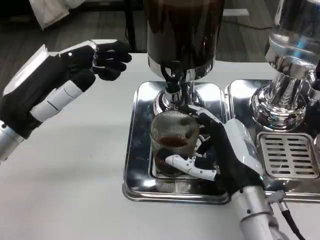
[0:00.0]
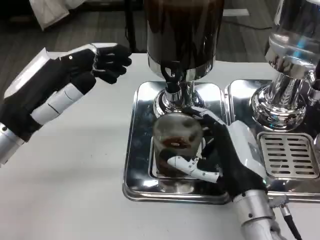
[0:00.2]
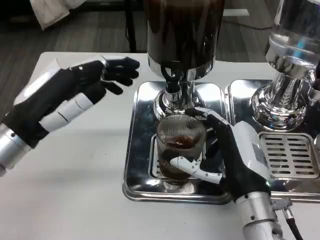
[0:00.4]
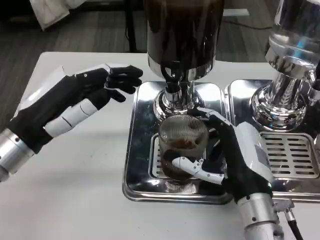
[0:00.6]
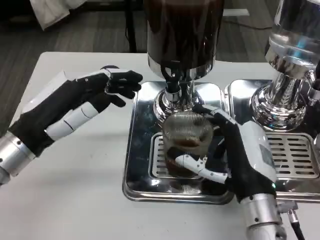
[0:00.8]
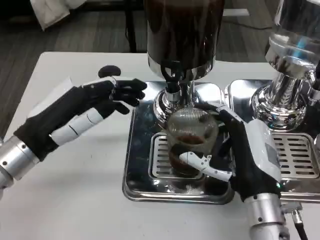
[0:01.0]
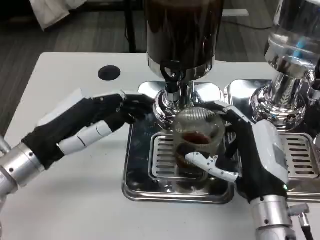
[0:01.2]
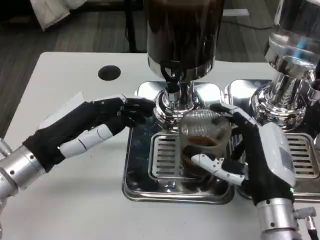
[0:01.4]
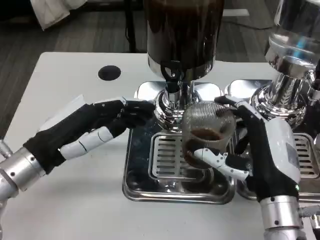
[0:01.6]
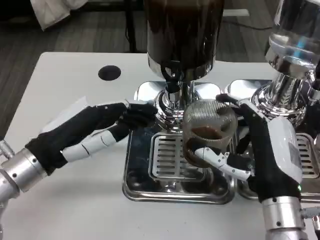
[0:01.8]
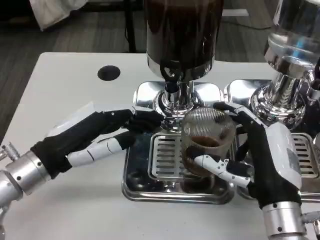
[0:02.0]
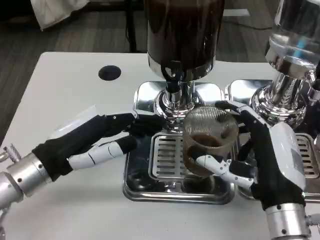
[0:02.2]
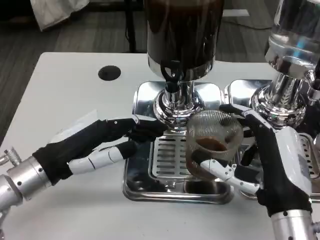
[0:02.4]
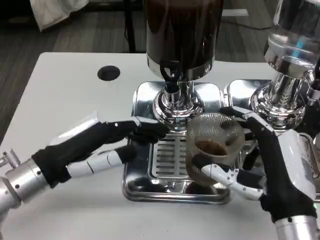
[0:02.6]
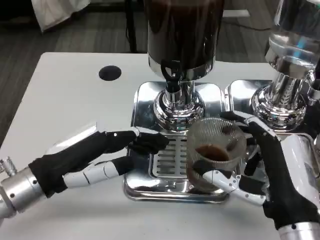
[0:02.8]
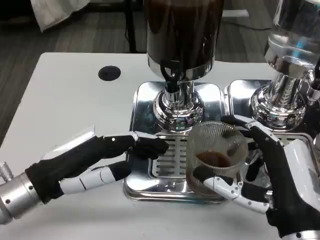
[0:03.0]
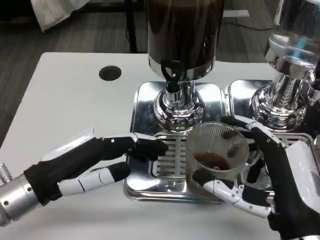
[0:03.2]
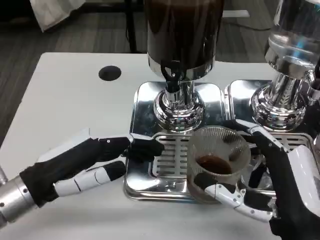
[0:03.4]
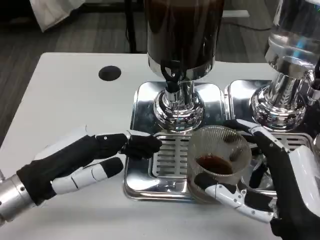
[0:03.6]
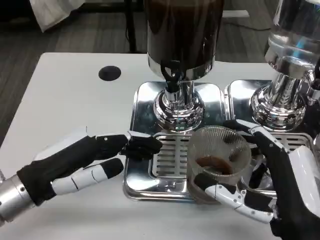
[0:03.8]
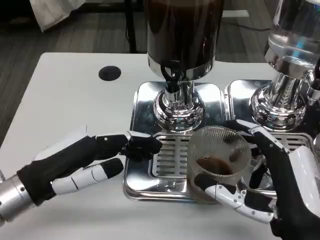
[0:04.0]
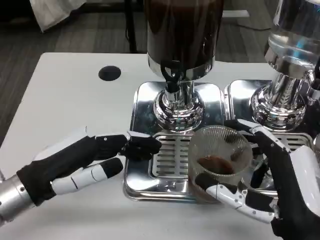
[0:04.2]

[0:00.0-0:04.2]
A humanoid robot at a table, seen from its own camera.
Task of the whole recording: Grasp the cup under the faucet to collect the drink, then remove the cup.
1.4 to 2.8 s: The right hand changes place by roughly 5 cm.
2.8 to 4.2 s: The hands move only a little.

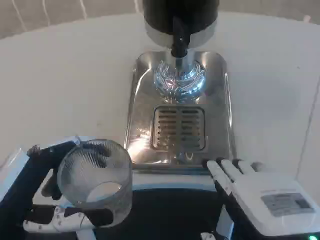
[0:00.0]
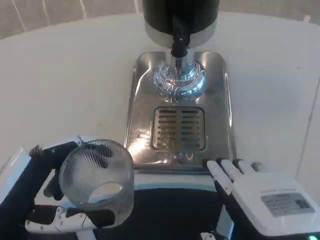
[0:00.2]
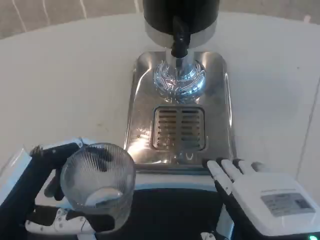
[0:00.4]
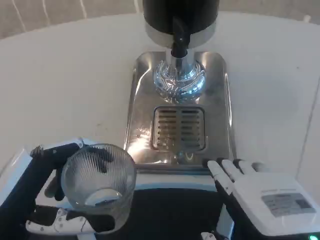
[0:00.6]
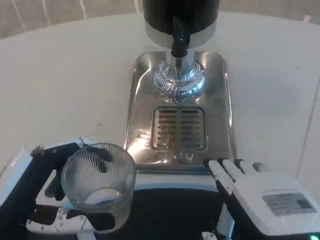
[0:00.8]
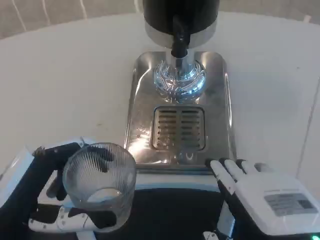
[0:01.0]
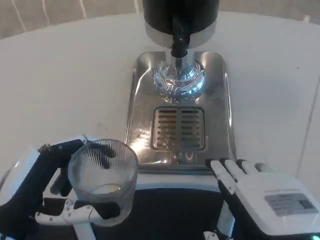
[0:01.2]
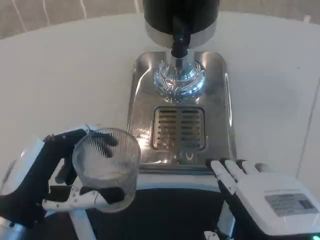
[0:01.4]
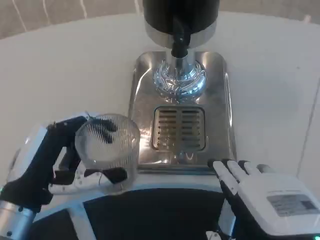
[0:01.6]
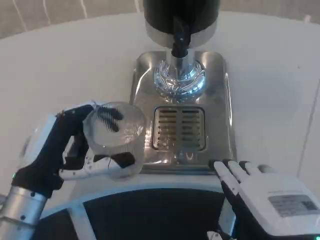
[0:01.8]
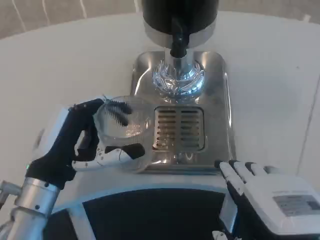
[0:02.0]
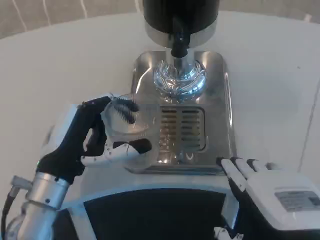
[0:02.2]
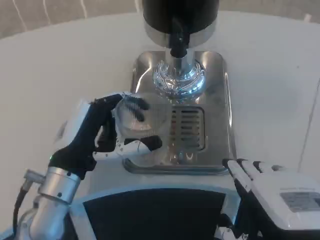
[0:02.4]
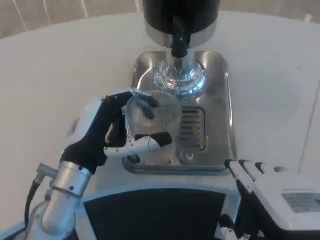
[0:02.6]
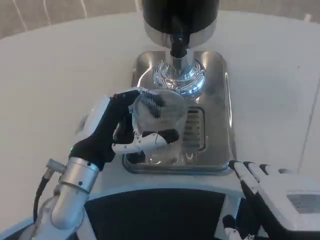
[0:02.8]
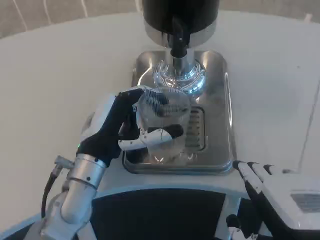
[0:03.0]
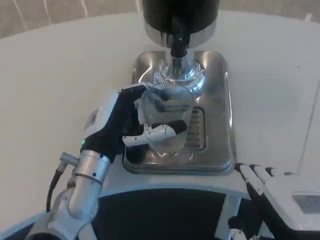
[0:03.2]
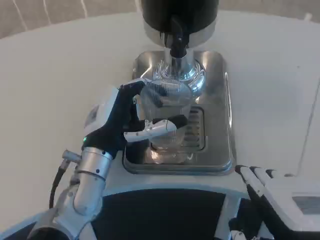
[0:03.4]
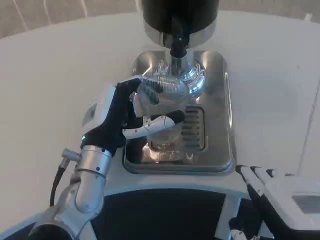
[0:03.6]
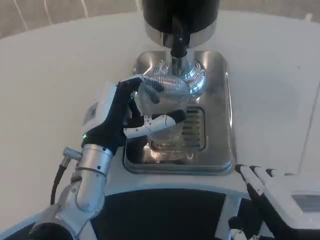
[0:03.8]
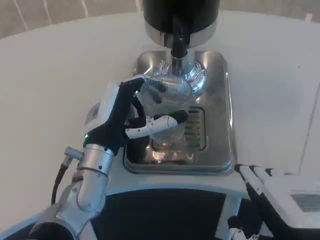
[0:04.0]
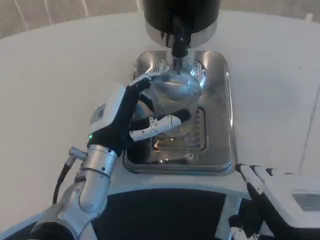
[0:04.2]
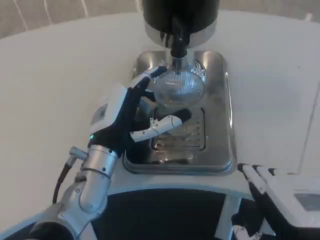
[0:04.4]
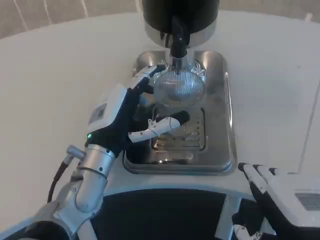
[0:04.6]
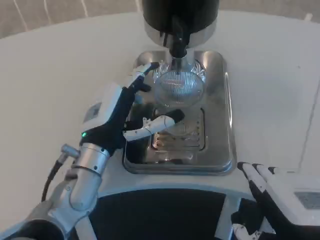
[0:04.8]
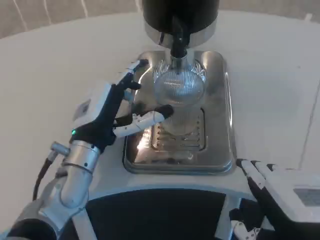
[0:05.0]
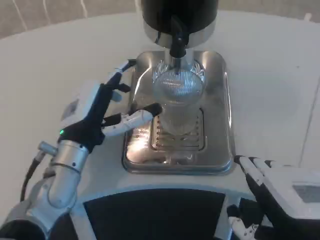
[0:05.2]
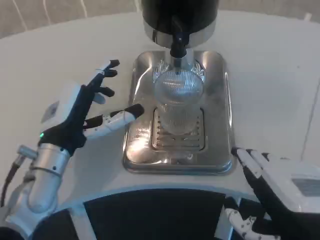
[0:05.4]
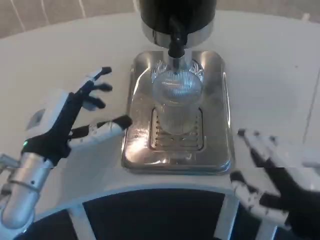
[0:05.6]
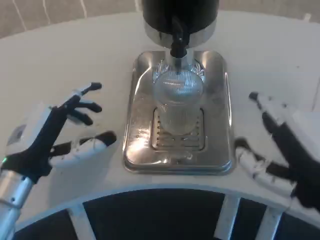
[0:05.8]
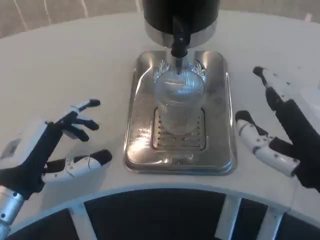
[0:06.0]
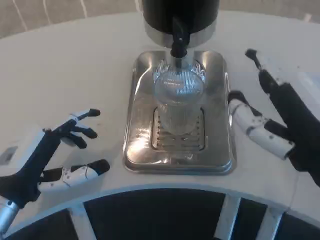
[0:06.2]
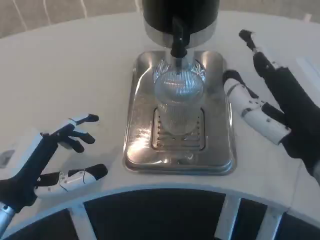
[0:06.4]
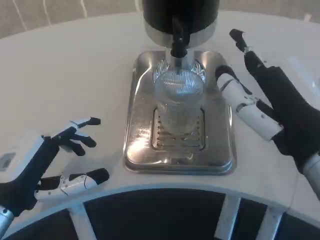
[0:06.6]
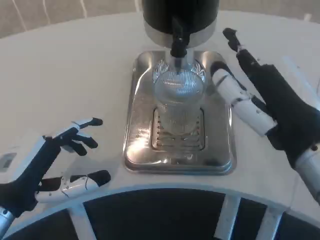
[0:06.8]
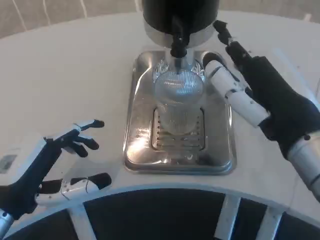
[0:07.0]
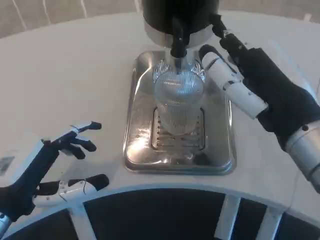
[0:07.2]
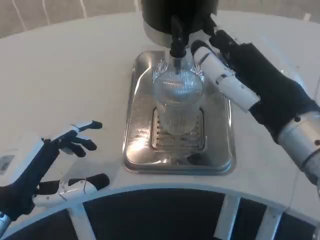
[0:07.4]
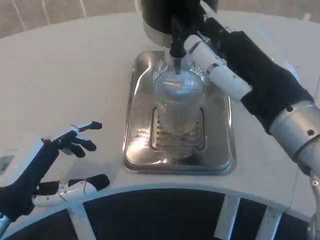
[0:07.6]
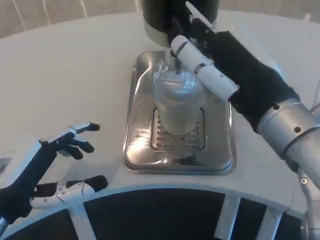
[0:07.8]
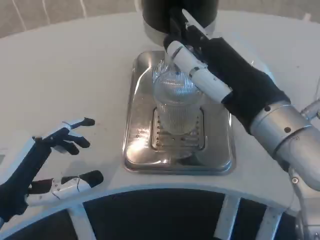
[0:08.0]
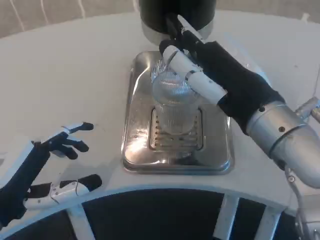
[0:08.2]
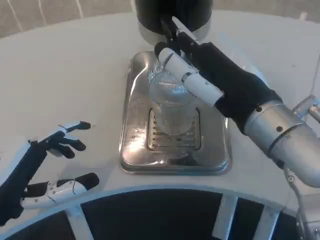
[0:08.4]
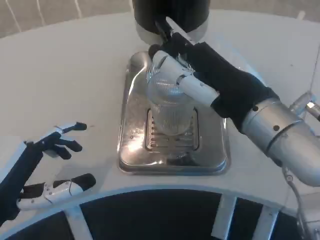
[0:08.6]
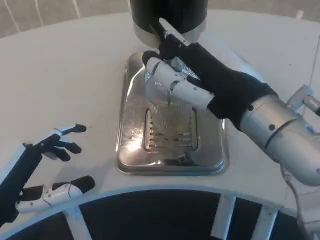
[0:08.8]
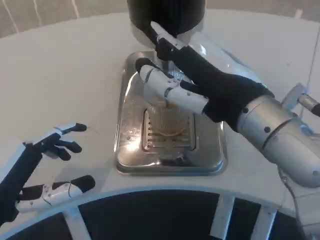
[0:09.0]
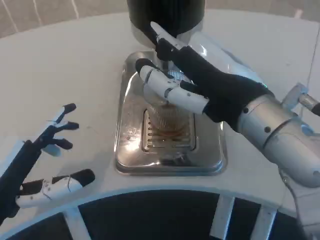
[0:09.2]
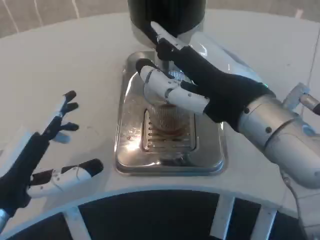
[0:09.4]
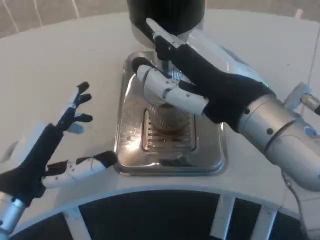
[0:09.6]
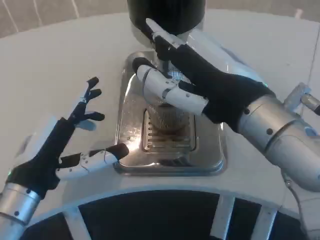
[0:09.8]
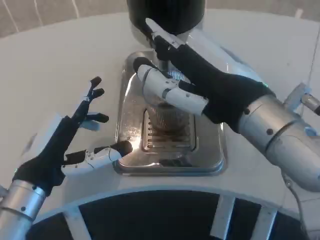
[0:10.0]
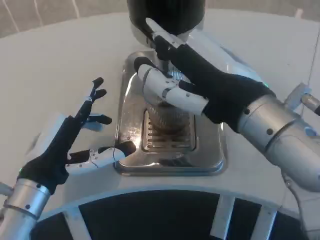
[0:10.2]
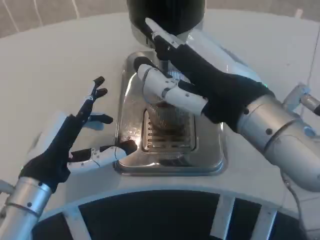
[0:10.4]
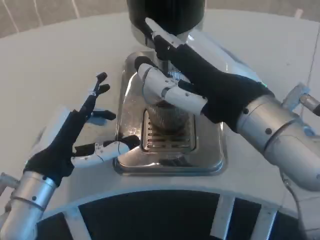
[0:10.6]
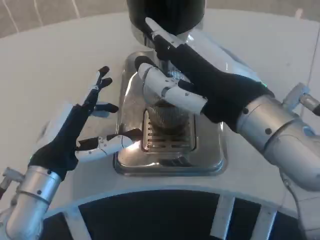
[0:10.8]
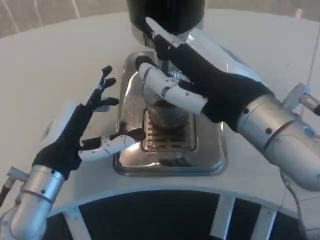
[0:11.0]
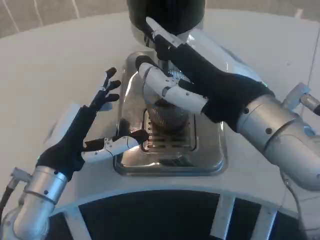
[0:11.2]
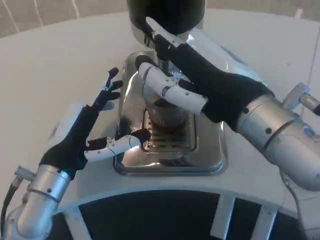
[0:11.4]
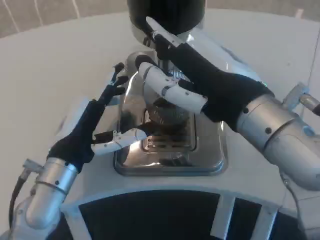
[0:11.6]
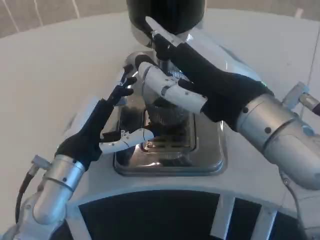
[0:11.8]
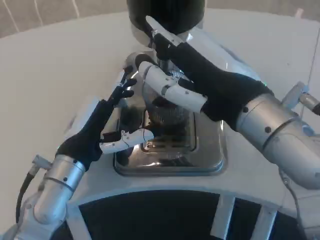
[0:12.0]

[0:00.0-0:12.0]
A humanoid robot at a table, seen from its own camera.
Task of the whole recording: Grasp the cup under the faucet to collect the drink, then remove the cup.
0.0 to 1.6 s: The left hand ends up about 5 cm from where it was.
1.6 to 3.0 s: The left hand is displaced forward and to the right by approximately 10 cm.
3.0 to 4.4 s: The hands stay close to where they were, moving slightly.
4.4 to 6.0 s: The right hand shifts by about 5 cm. Meanwhile the left hand travels to the left and backward by roughly 15 cm.
6.0 to 7.6 s: The right hand travels forward by roughly 5 cm.
9.0 to 10.4 s: The left hand heads forward and to the right, covering about 10 cm.
10.4 to 12.0 s: The left hand changes place by some 5 cm.

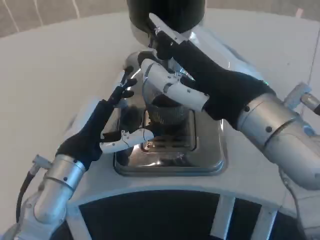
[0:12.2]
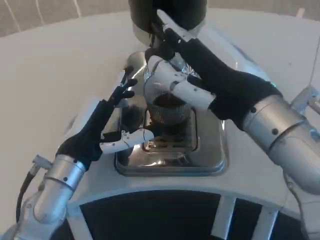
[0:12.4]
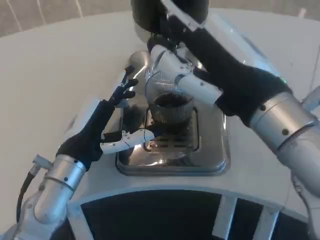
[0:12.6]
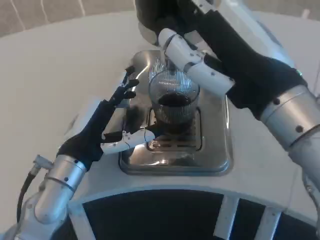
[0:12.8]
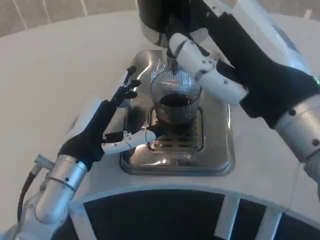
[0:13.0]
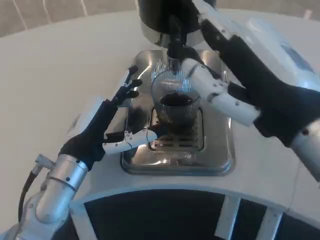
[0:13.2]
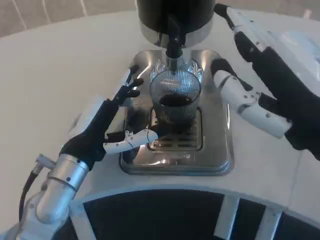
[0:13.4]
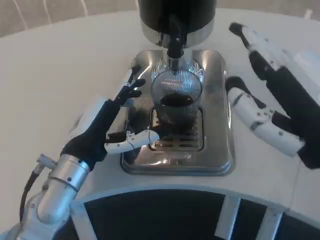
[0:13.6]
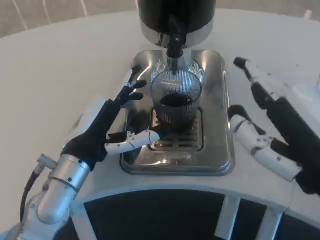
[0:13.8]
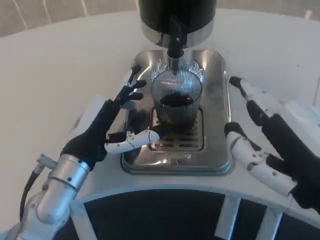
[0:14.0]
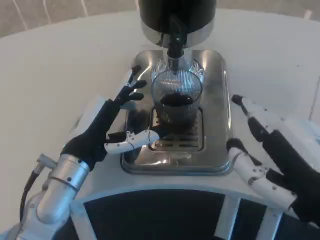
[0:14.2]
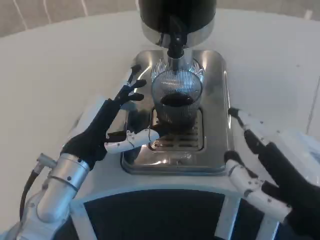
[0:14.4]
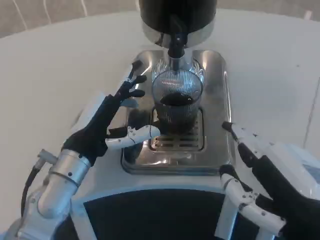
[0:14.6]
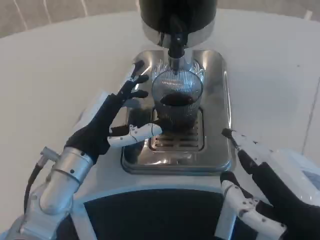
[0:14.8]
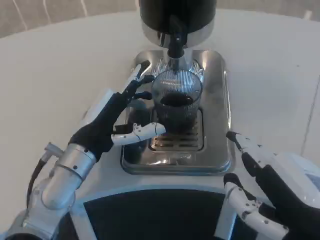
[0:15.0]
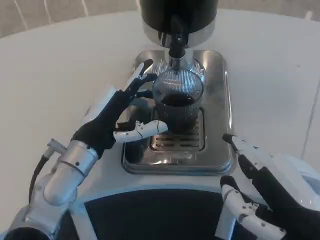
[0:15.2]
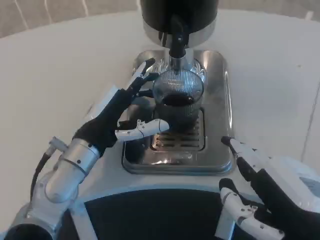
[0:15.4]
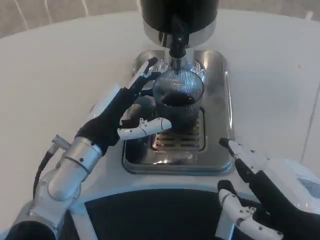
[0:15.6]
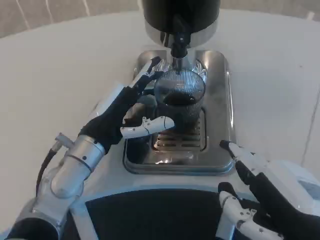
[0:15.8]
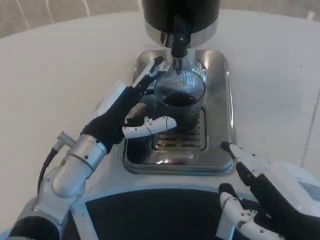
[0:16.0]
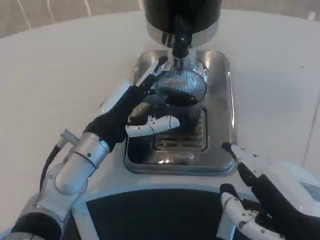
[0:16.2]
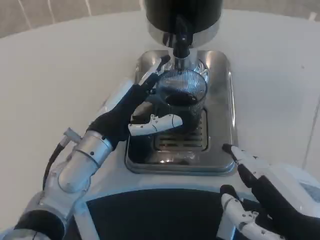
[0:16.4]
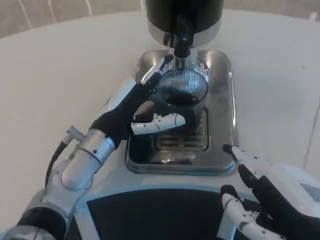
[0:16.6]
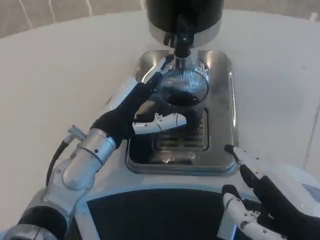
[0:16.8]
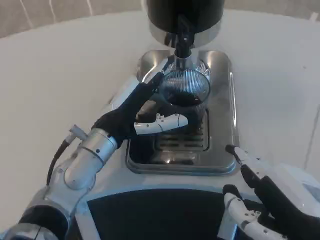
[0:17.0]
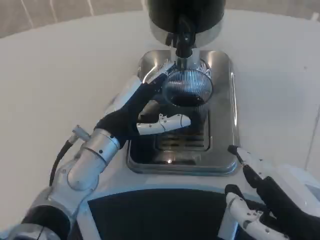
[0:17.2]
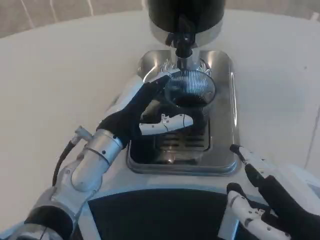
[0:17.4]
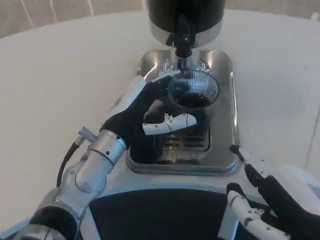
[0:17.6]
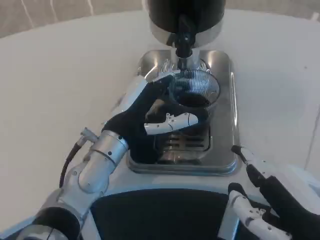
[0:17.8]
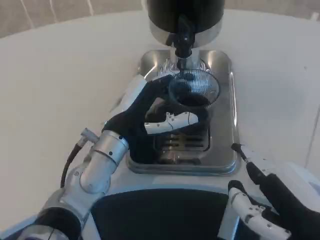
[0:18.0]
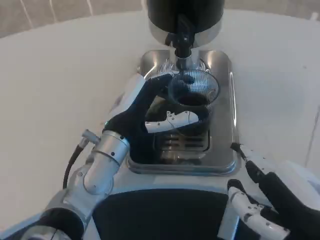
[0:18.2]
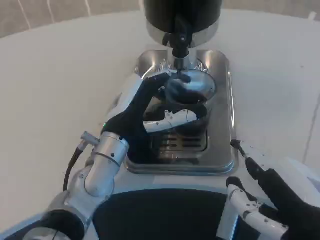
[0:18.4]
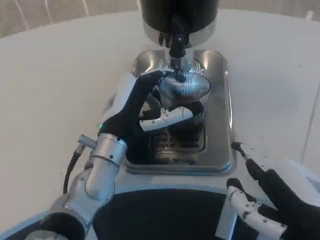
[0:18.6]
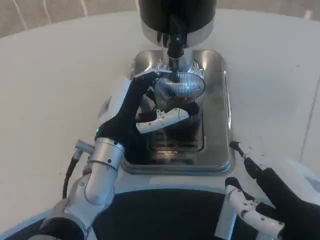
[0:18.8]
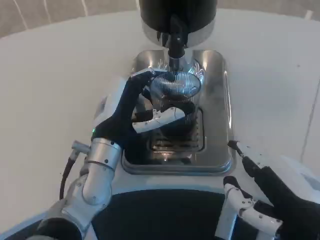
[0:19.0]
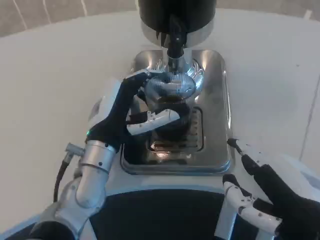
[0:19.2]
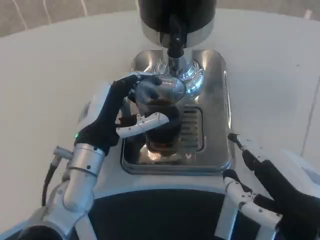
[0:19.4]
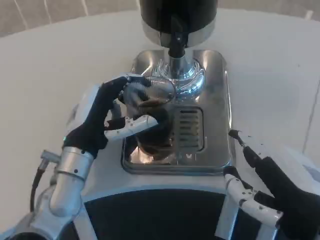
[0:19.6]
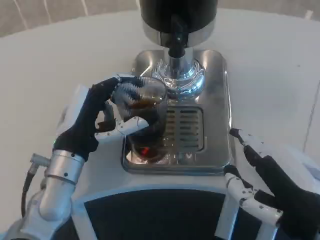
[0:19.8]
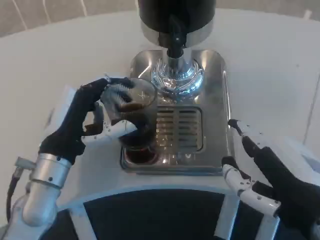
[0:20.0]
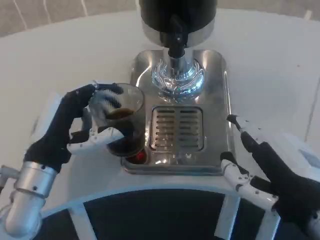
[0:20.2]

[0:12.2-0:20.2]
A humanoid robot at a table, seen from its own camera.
Task of the whole recording: Grasp the cup under the faucet to collect the drink, then remove the cup.
12.2 to 13.8 s: The right hand goes roughly 10 cm backward and to the right.
15.4 to 18.6 s: The hands move only a little.
18.6 to 20.2 s: The left hand shifts roughly 10 cm to the left.
